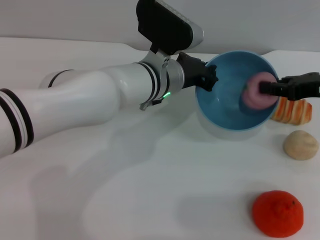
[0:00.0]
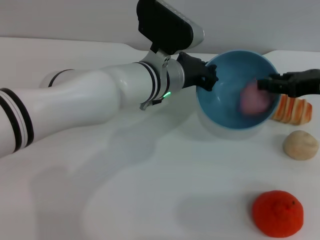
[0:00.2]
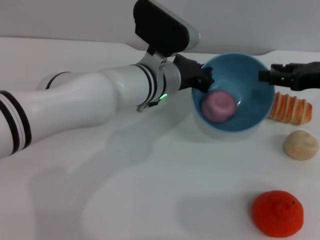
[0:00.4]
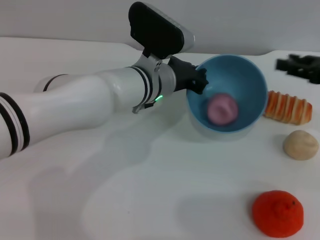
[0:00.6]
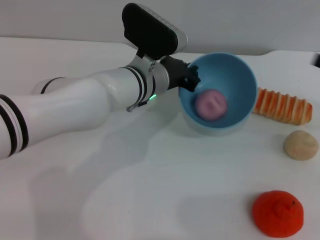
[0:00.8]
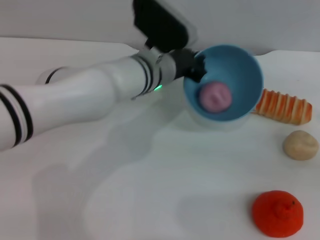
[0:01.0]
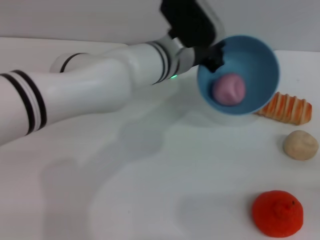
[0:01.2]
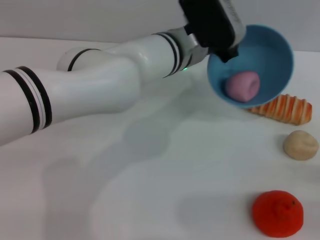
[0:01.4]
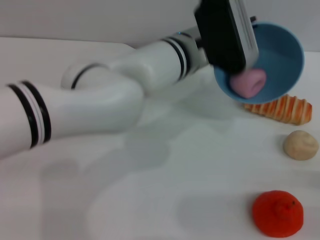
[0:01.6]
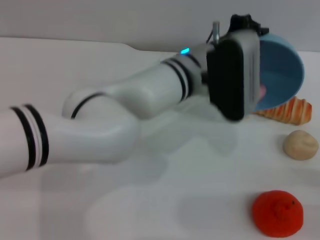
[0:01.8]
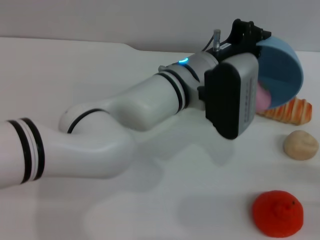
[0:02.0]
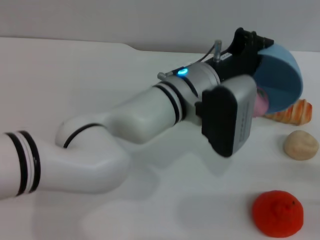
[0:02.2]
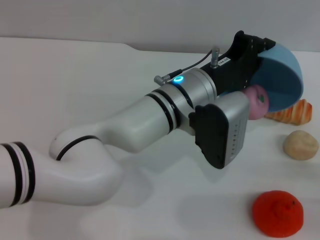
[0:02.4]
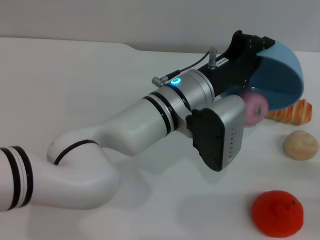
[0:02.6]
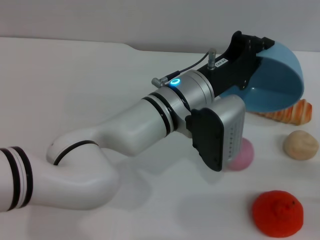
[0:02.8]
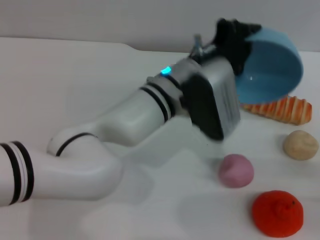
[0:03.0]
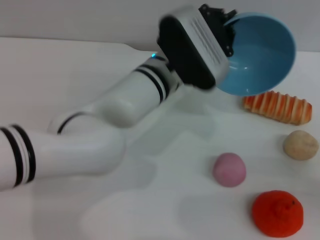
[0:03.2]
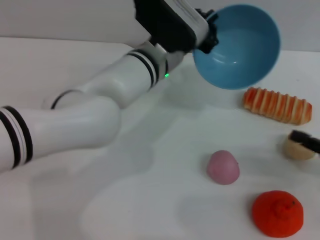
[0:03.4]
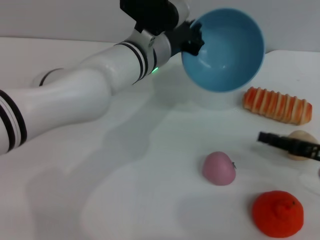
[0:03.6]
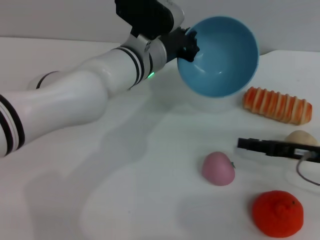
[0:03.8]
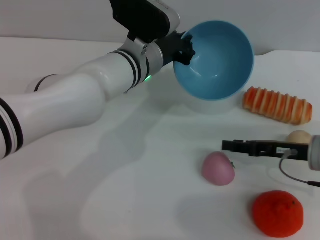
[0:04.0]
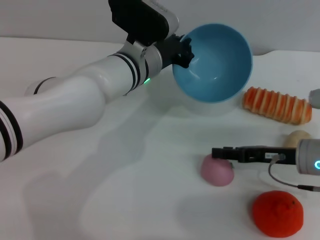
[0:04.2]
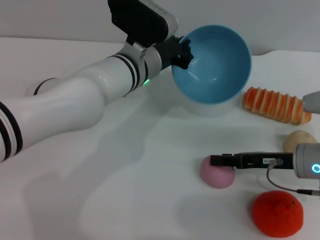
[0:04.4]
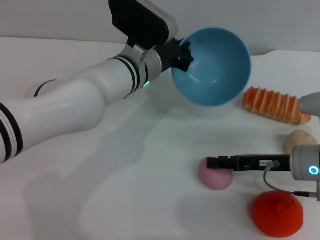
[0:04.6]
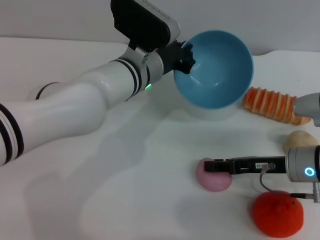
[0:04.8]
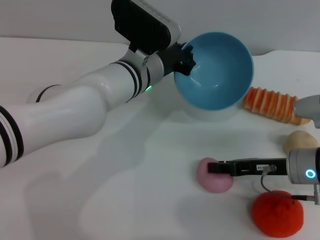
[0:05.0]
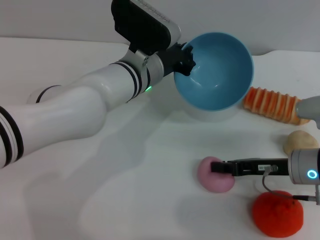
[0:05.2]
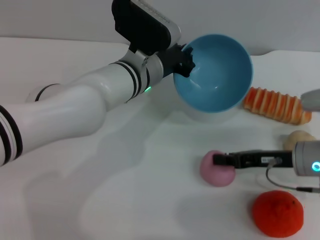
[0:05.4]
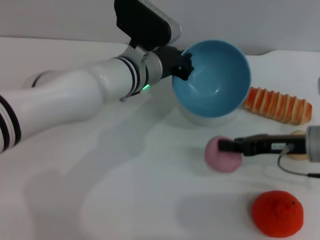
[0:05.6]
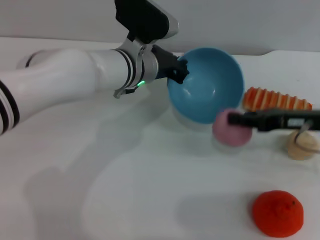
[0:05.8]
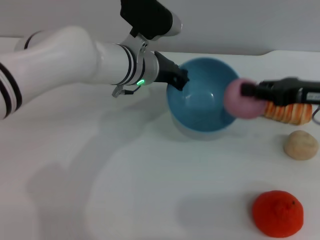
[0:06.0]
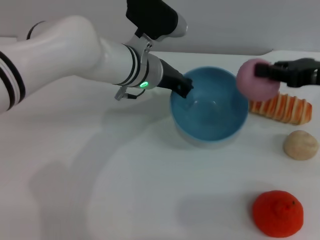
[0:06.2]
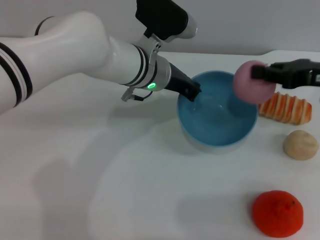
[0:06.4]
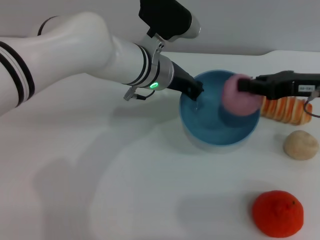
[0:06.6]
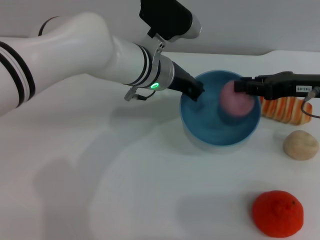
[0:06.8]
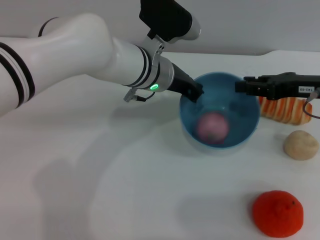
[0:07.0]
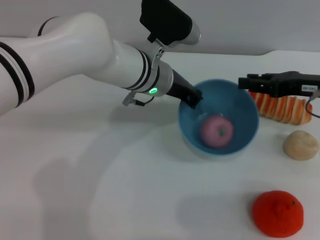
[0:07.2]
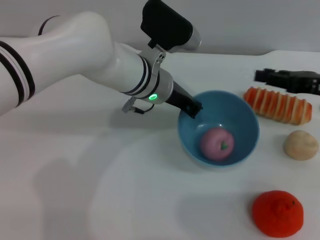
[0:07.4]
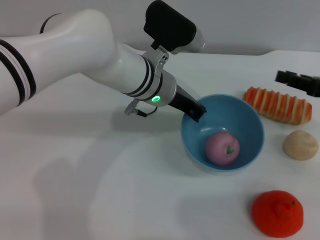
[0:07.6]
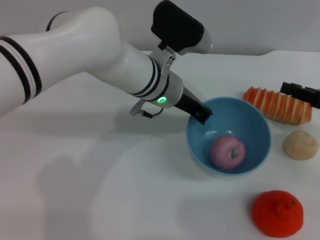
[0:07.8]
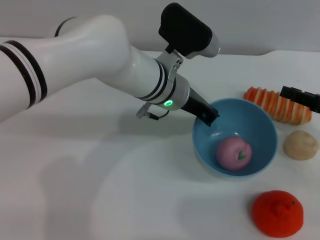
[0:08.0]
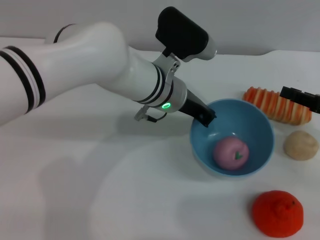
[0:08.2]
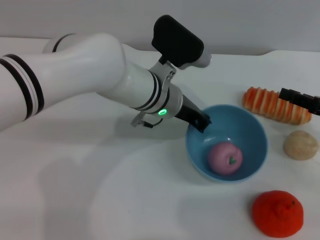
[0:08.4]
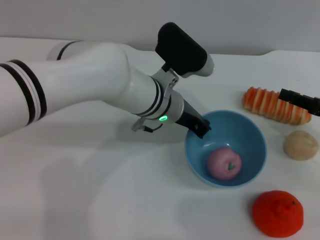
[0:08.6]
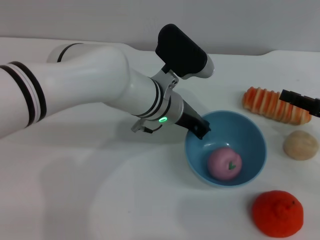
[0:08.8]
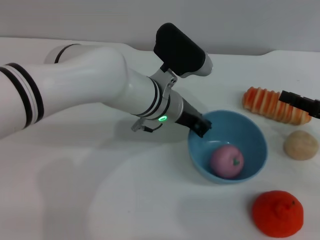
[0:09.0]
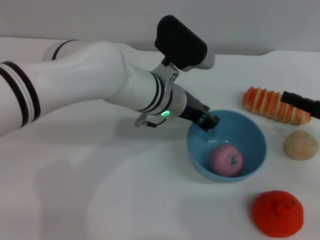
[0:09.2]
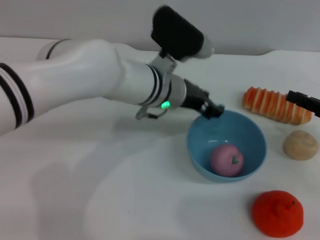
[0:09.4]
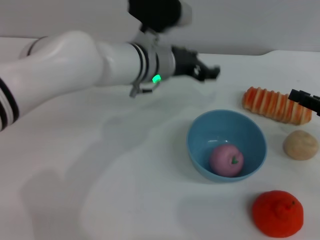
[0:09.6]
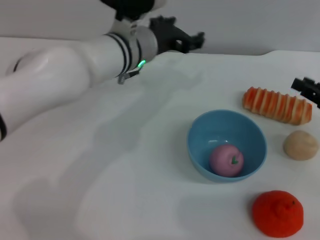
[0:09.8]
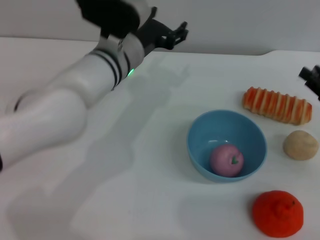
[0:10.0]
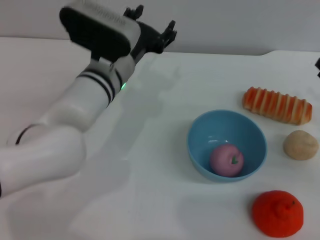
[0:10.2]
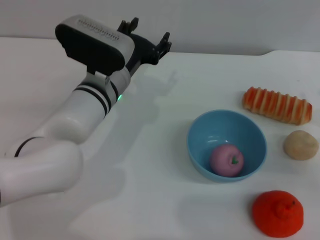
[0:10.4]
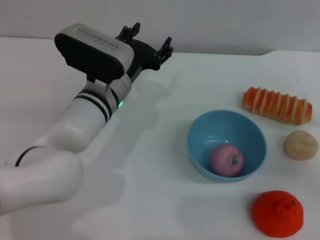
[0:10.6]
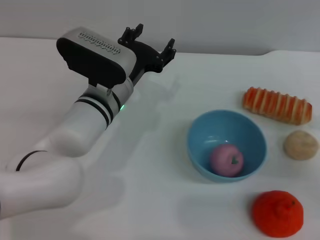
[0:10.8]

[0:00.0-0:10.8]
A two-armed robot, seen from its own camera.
Task of the whole recording: put the peach into the blue bowl and pour it out repeatedly.
Step, 0:00.6 to 0:03.0: Pour the peach out of bowl.
Step, 0:03.2 to 0:06.0: Pick up the peach with the right gripper.
Step, 0:06.4 to 0:07.2: Place the peach into the bowl.
Step, 0:07.4 to 0:09.6: Place the bowl on the table.
0:00.0 to 0:01.6: The right gripper moves backward, downward and to the right, about 25 cm, and opens its fingers. Meanwhile the left gripper ends up about 5 cm from where it was.
0:01.6 to 0:03.0: The left gripper moves some 5 cm.
0:03.0 to 0:04.6: The left gripper heads forward and to the left, covering roughly 10 cm. Meanwhile the right gripper moves to the left and forward, approximately 20 cm.
0:04.6 to 0:06.2: The right gripper moves upward, some 15 cm, and closes its fingers.
0:06.2 to 0:07.8: The right gripper travels downward by roughly 5 cm, and opens its fingers.
0:07.8 to 0:09.2: The grippers make only small movements.
0:09.2 to 0:10.8: The right gripper travels downward by about 5 cm; the left gripper travels to the left by some 5 cm, and opens its fingers.

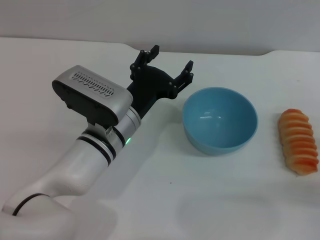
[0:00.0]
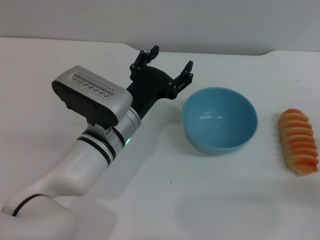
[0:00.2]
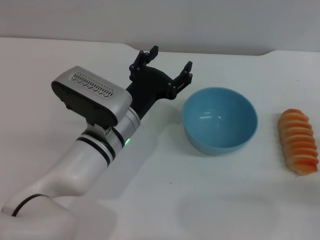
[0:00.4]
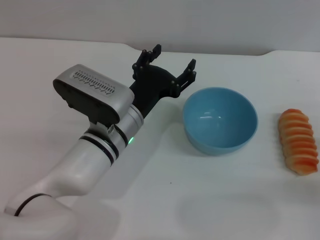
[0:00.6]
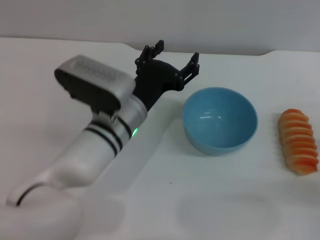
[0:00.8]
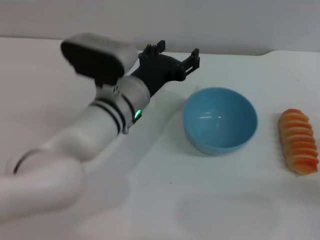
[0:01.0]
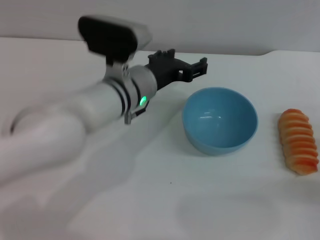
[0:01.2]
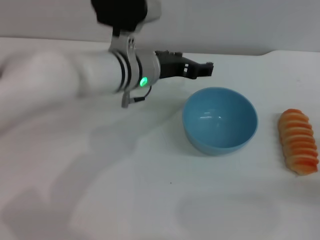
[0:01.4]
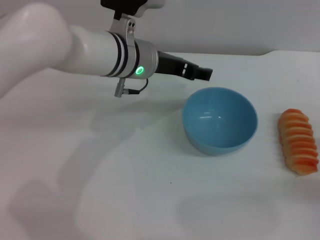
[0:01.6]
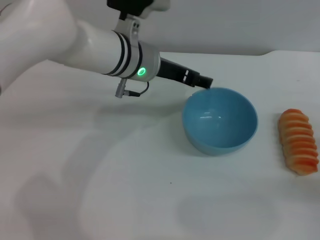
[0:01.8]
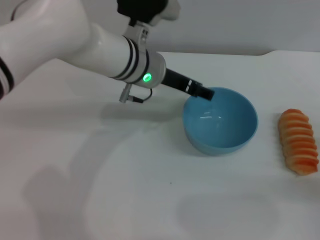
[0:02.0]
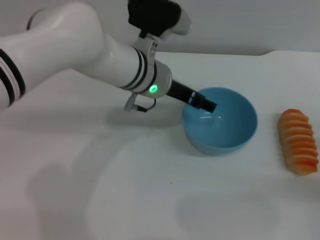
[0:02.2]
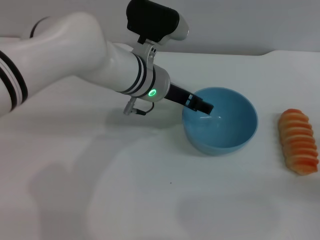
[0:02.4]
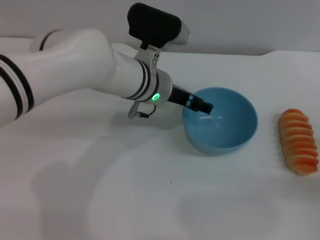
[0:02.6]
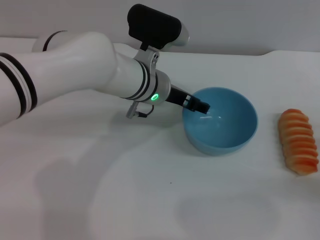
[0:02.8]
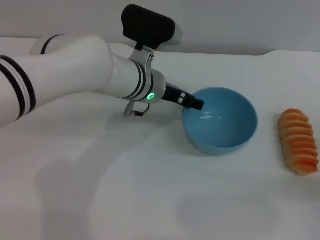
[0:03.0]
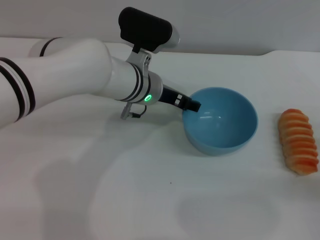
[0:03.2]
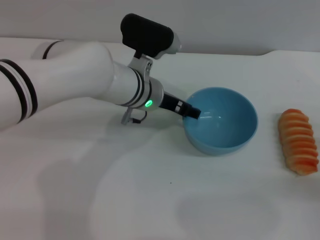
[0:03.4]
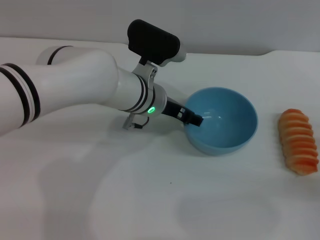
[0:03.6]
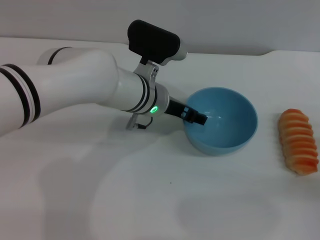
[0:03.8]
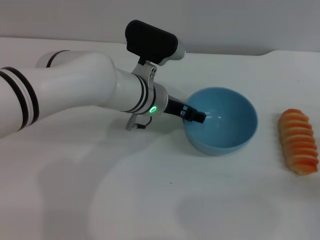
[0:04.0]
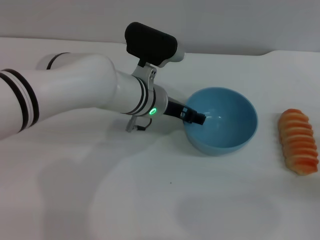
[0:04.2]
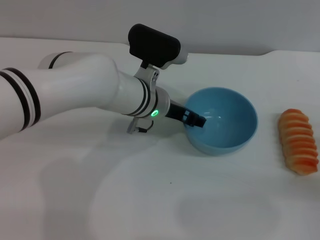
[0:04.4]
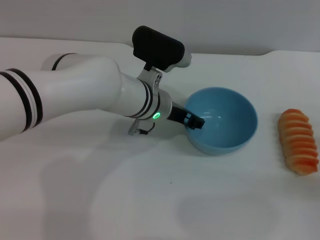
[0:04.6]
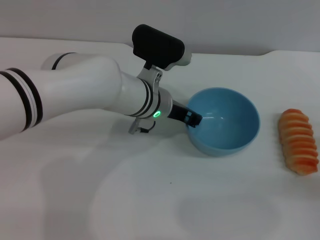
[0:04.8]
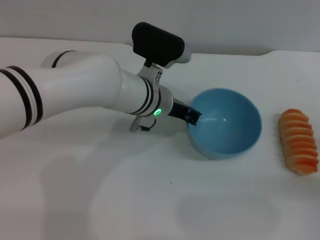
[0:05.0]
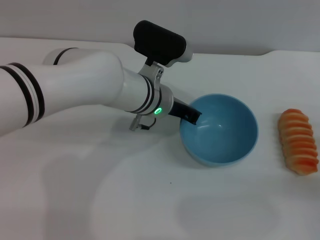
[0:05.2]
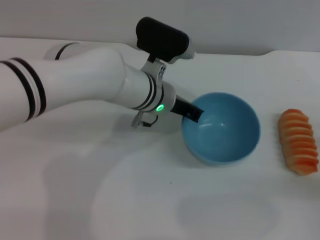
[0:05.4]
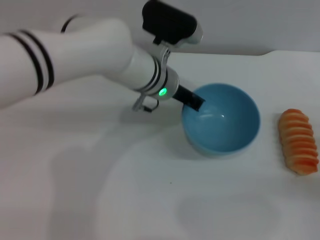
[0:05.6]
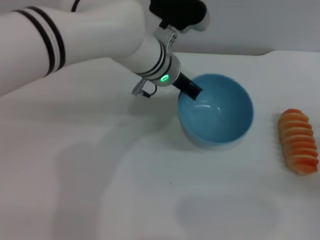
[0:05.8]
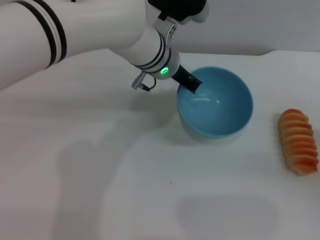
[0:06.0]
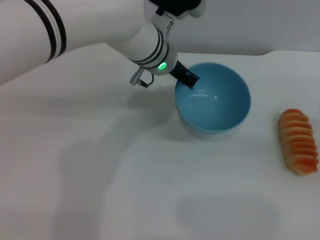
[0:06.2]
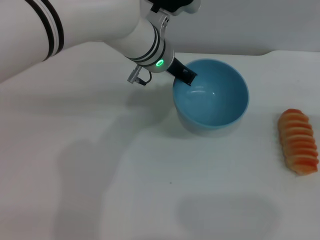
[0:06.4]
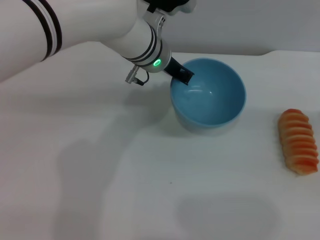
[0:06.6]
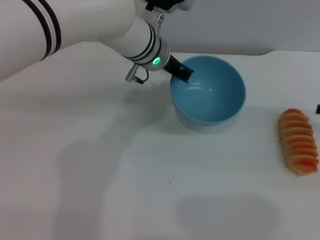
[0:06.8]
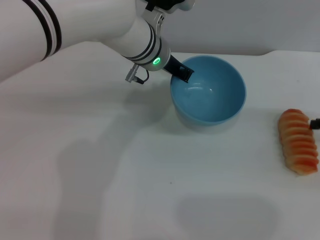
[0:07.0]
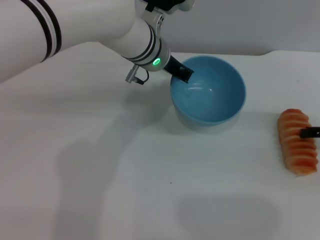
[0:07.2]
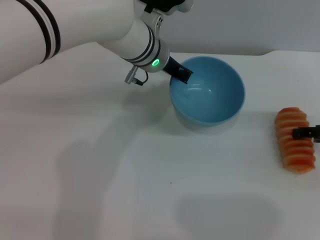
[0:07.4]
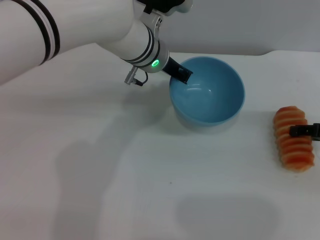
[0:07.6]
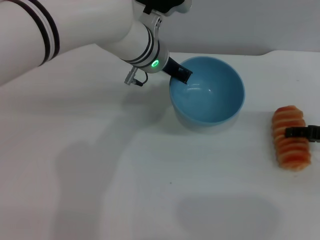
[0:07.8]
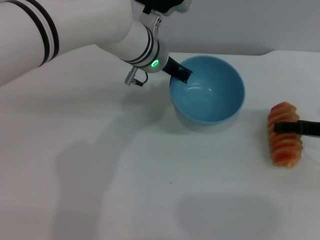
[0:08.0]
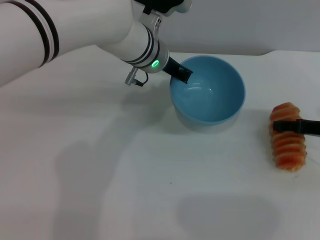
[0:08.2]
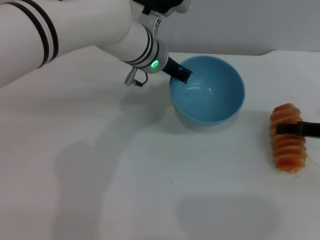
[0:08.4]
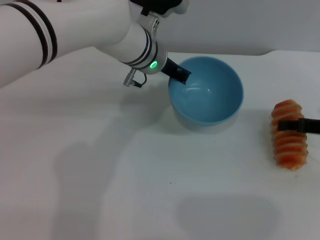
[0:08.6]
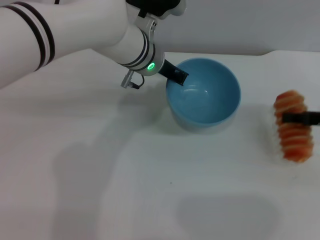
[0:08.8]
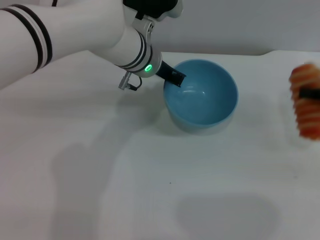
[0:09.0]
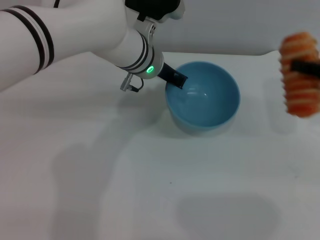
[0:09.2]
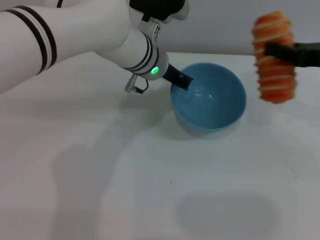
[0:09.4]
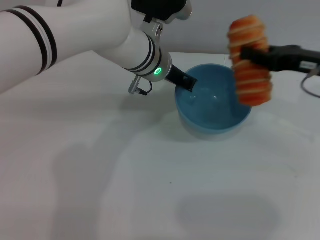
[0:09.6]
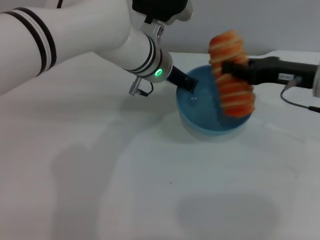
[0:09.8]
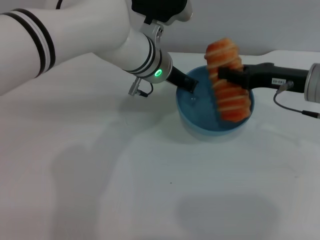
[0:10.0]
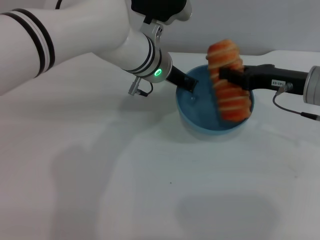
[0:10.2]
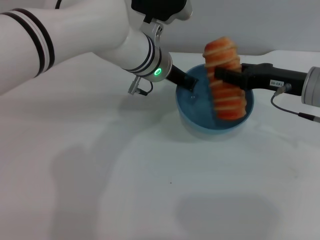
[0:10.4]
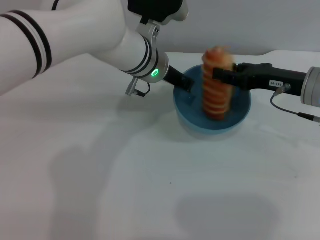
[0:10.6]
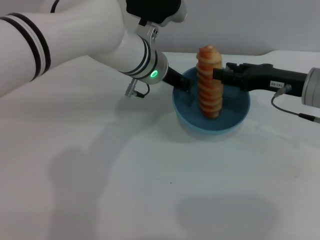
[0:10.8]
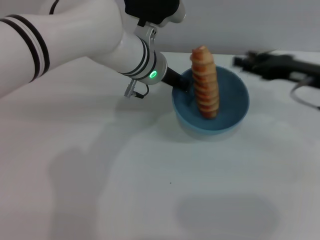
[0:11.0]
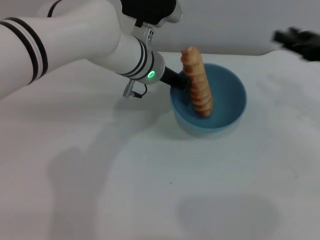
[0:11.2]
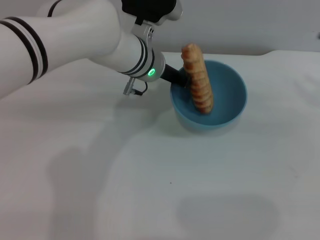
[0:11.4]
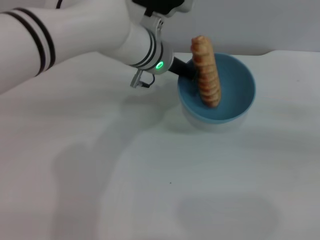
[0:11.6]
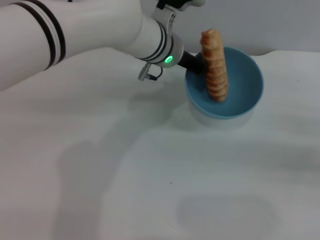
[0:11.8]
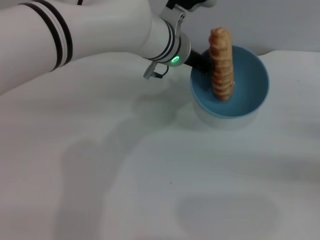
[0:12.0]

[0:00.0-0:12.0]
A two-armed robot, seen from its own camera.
Task of the whole recording: put the bread into the blue bowl and pour it out repeatedly.
Step, 0:00.0 to 0:06.2: Pick up the bowl with the left gripper.
Step, 0:06.4 to 0:09.0: Pick up the bread with the right gripper.
Step, 0:09.2 to 0:11.0: Place the bread into the bowl.
0:00.0 to 0:01.6: The left gripper heads forward and upward, covering roughly 15 cm.
0:01.6 to 0:03.0: The left gripper is displaced downward by about 5 cm.
0:03.0 to 0:04.4: The grippers move only a little.
0:04.4 to 0:06.0: The left gripper shifts roughly 5 cm upward, and closes its fingers.
0:06.0 to 0:07.6: The right gripper heads forward and upward, covering approximately 10 cm.
0:07.6 to 0:09.0: The right gripper goes about 5 cm upward, and closes its fingers.
0:09.0 to 0:10.4: The right gripper travels to the left by about 10 cm.
0:10.4 to 0:12.0: The right gripper travels to the right and backward by approximately 20 cm, and opens up.
